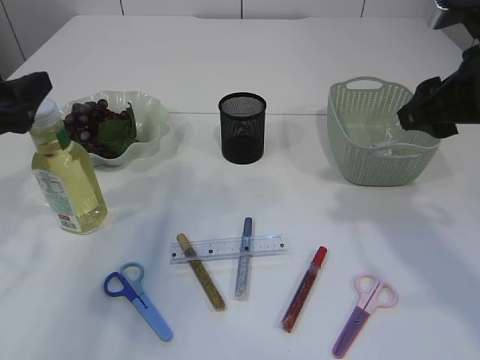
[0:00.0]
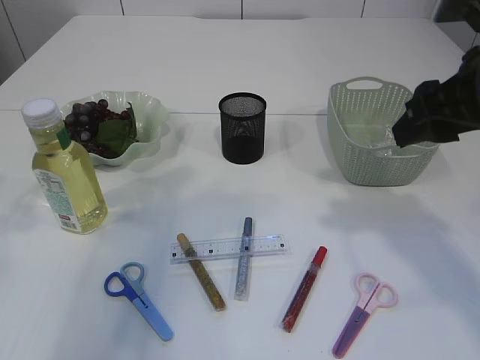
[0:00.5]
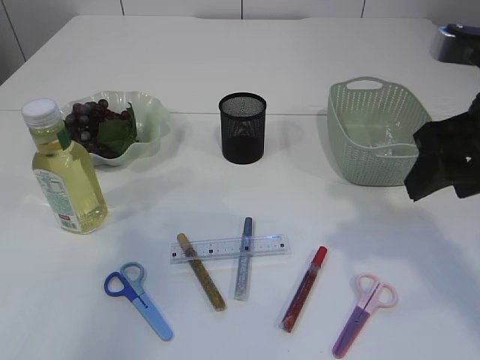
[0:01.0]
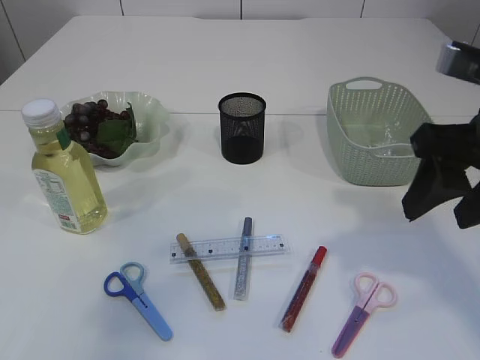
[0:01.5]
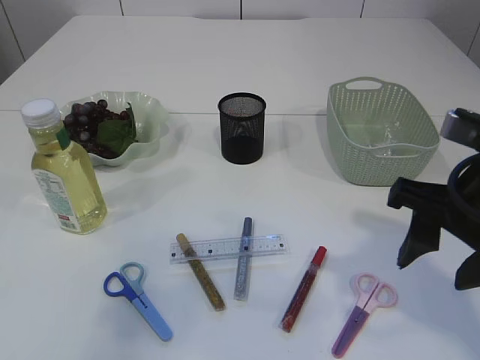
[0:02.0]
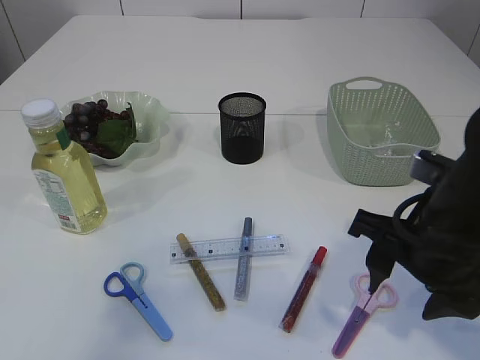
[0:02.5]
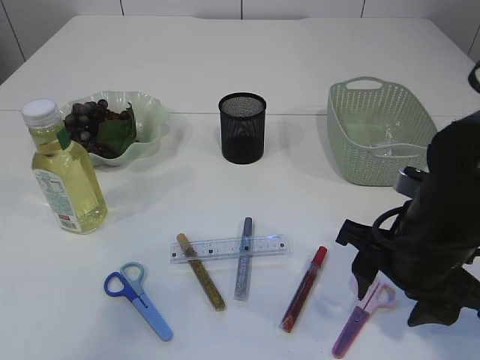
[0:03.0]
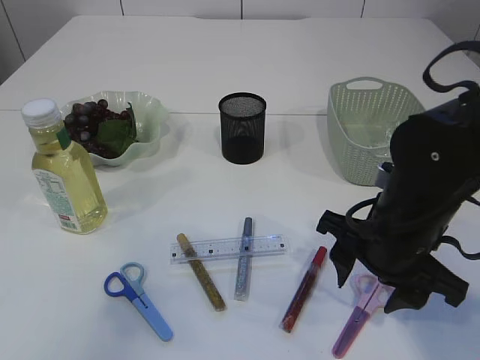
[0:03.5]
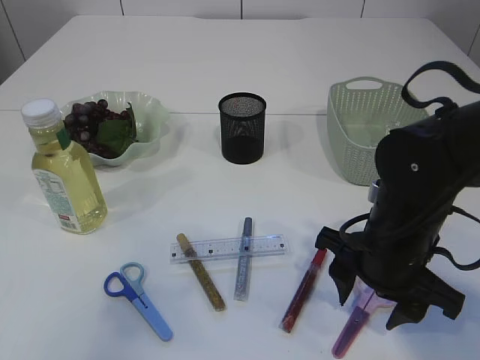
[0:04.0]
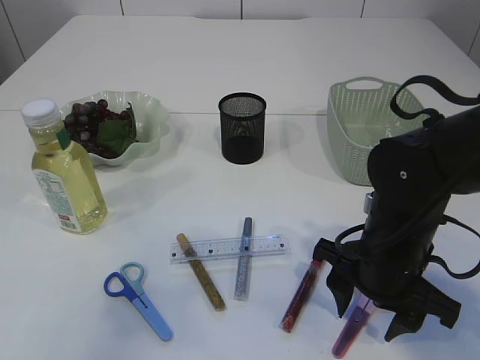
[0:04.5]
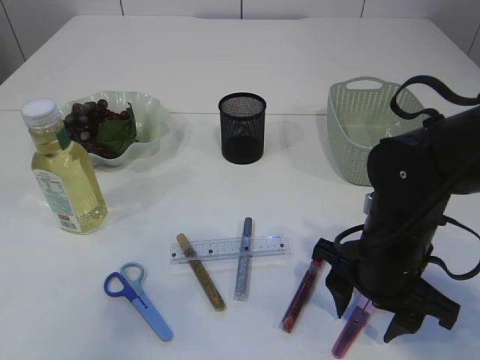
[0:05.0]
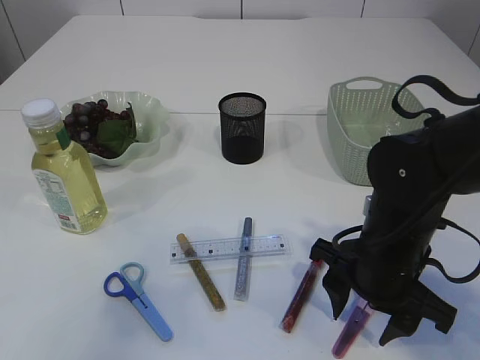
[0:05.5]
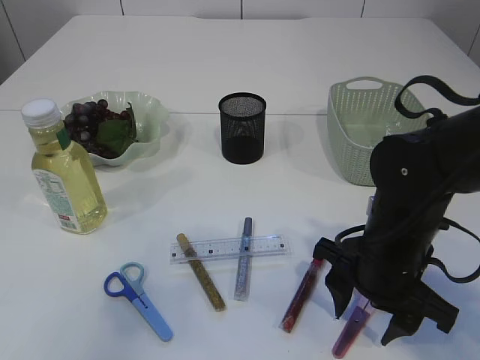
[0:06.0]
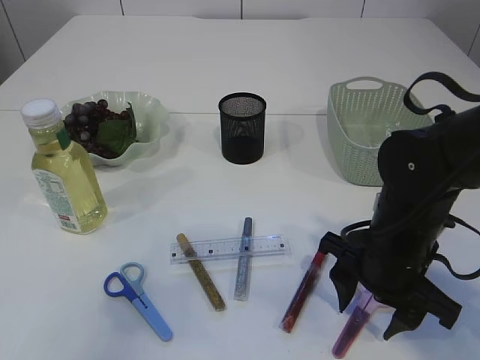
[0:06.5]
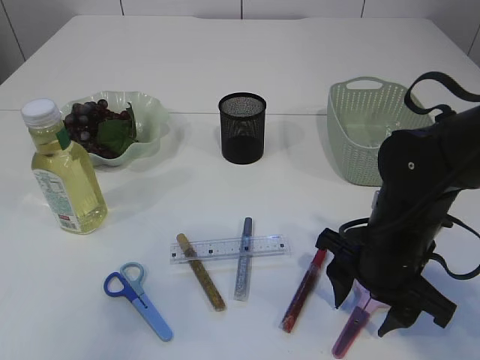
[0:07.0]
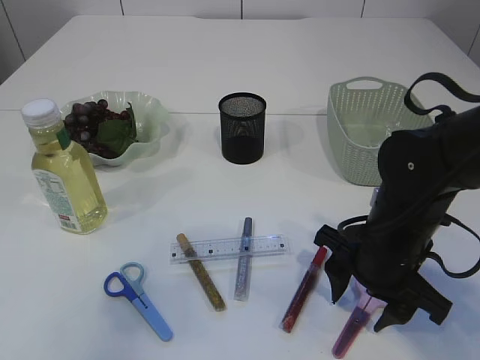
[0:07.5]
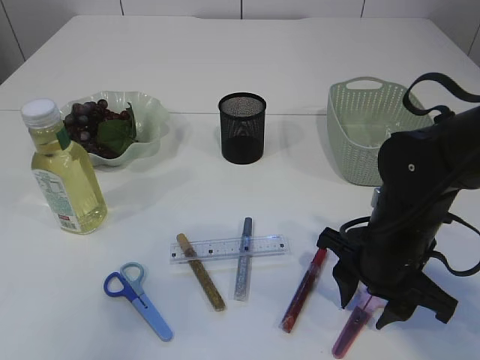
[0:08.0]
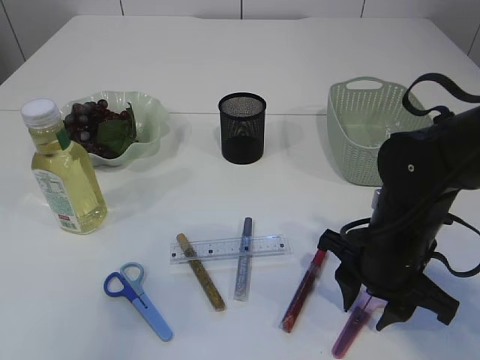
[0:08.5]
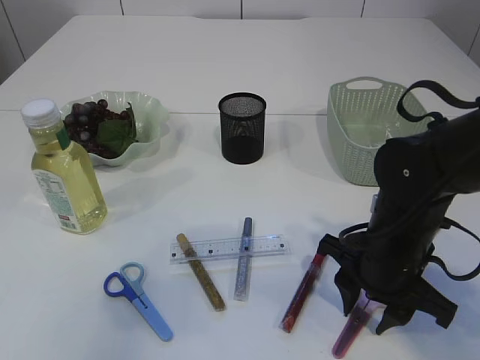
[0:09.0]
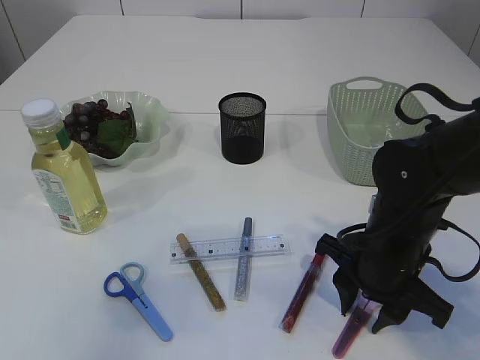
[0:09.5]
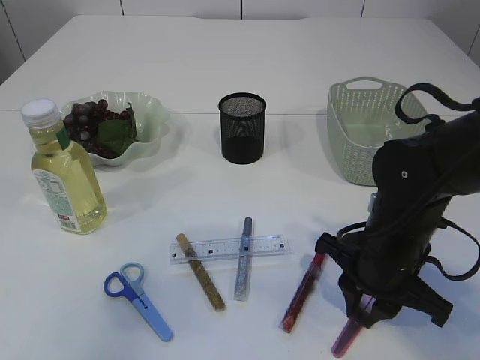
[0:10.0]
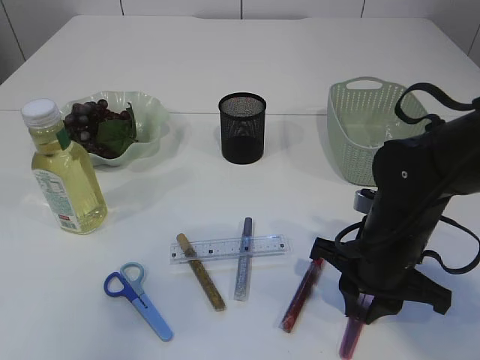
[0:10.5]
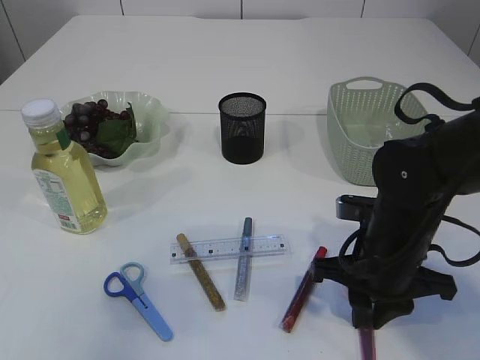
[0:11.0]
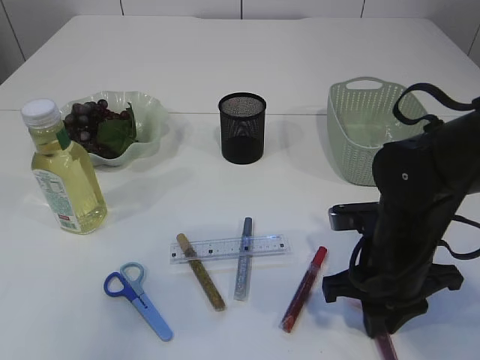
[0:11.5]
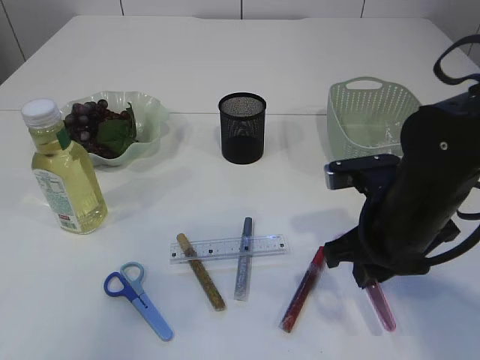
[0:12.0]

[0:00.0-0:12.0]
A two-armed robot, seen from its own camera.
0:00.0 to 0:02.0: The right gripper heads backward, covering some 5 cm, while the left gripper shifts some 20 cm backward and upward, and closes up.
0:02.0 to 0:04.0: The right gripper travels downward and to the left by approximately 10 cm.
0:04.0 to 0:08.0: The grippers move only a little.
0:08.0 to 0:10.0: The right gripper closes.

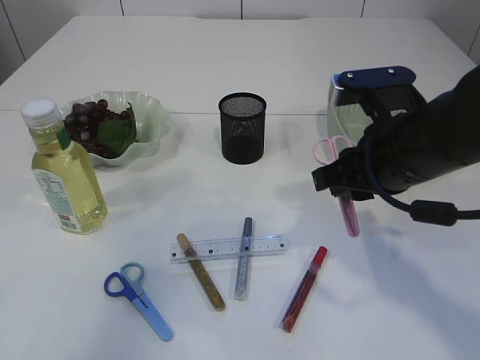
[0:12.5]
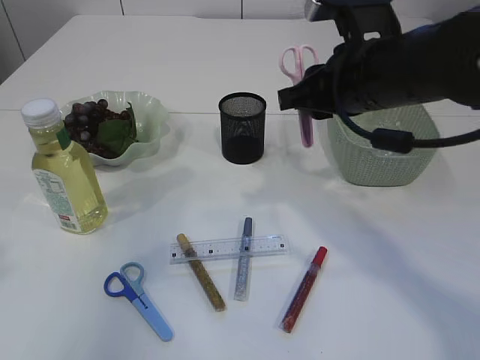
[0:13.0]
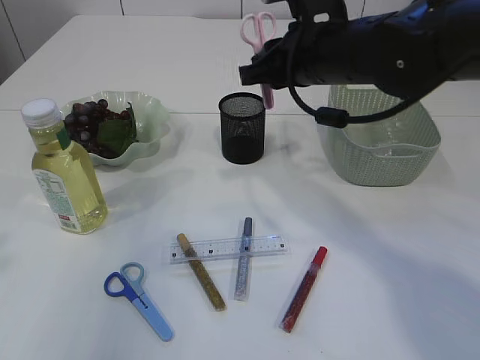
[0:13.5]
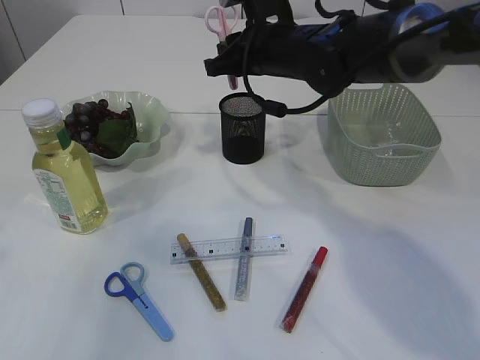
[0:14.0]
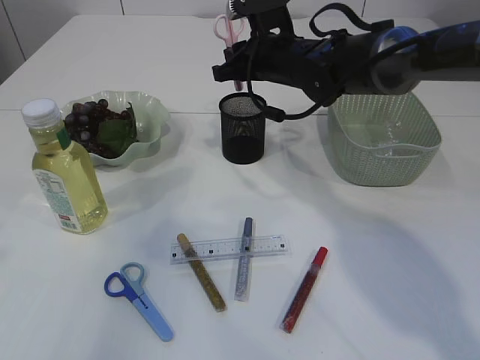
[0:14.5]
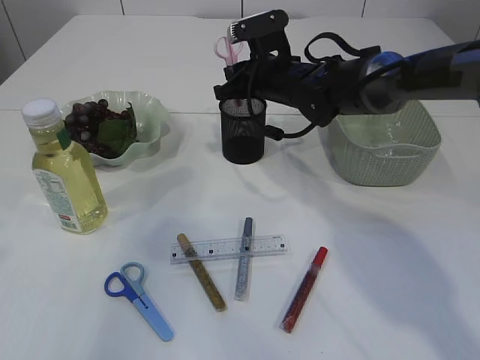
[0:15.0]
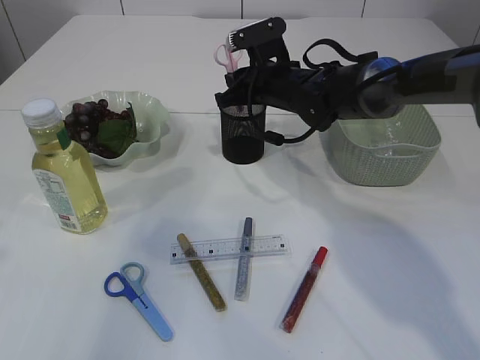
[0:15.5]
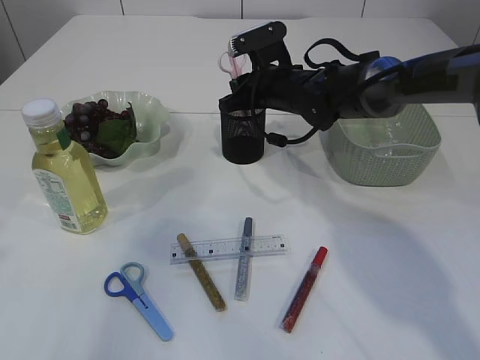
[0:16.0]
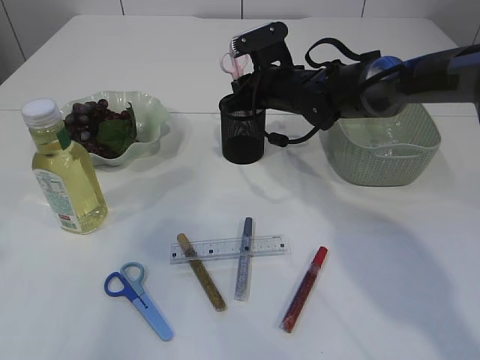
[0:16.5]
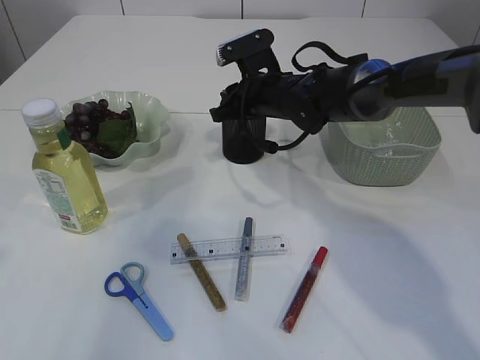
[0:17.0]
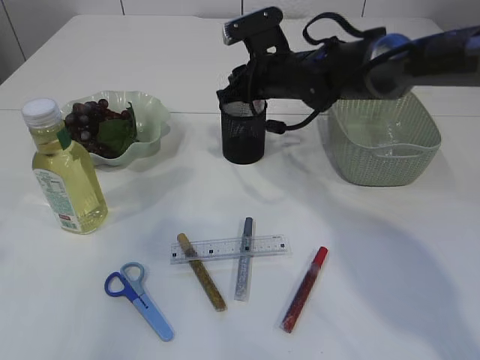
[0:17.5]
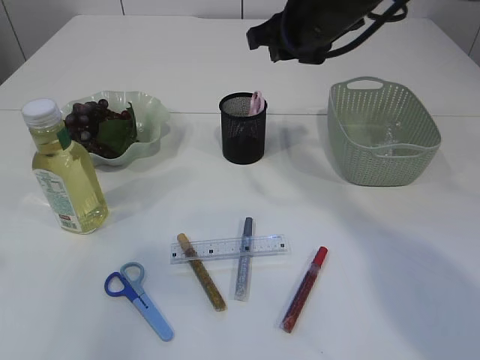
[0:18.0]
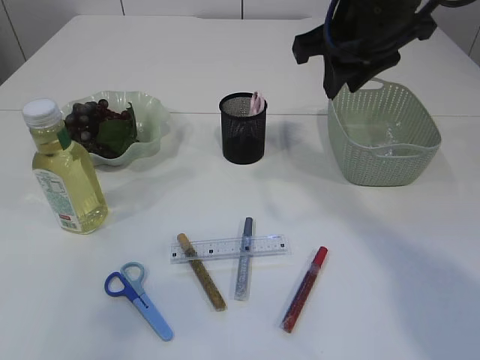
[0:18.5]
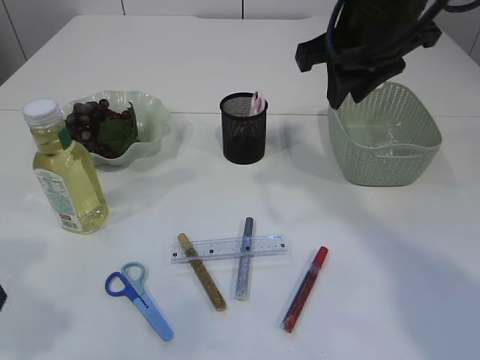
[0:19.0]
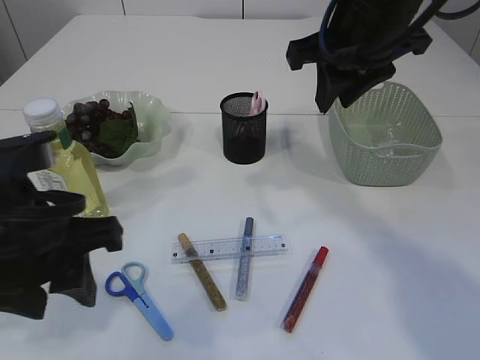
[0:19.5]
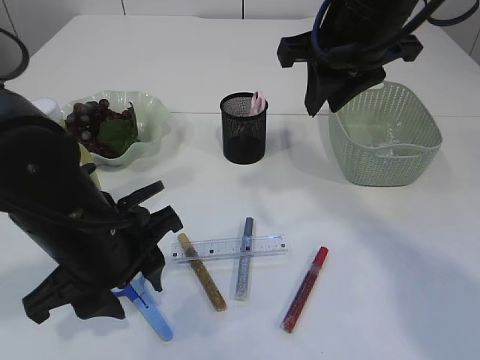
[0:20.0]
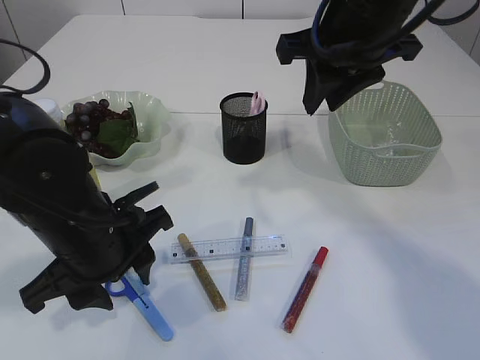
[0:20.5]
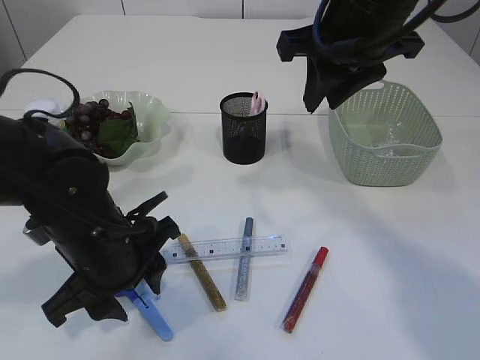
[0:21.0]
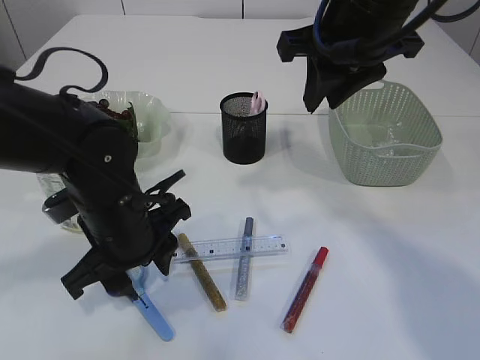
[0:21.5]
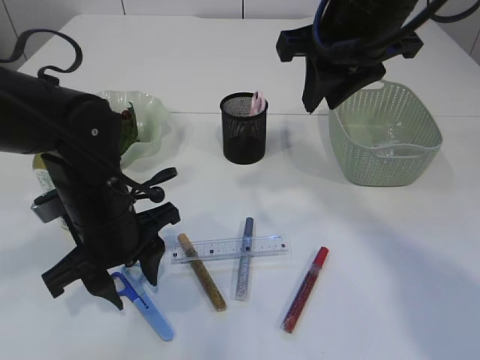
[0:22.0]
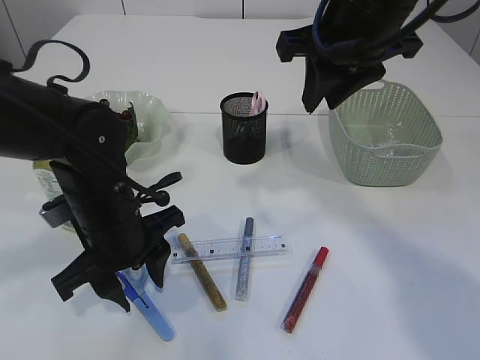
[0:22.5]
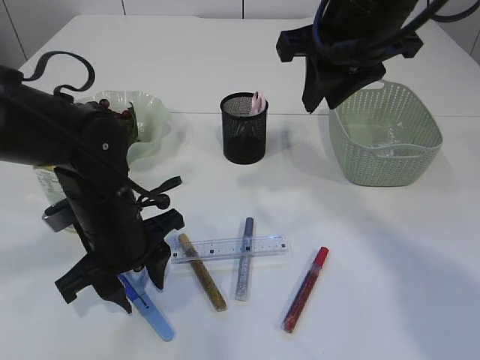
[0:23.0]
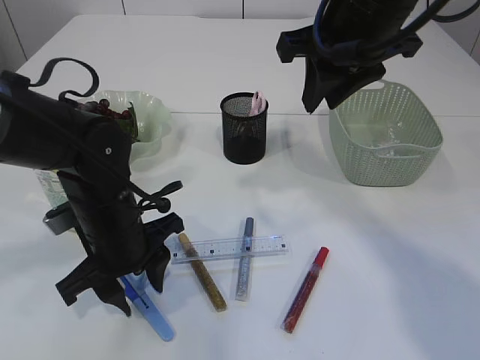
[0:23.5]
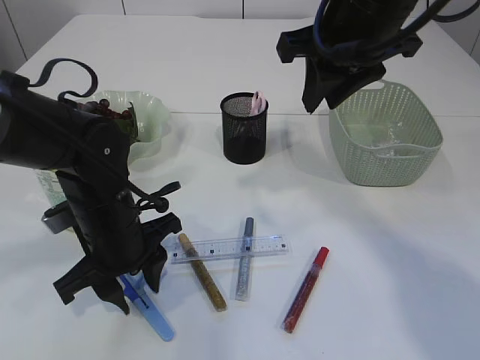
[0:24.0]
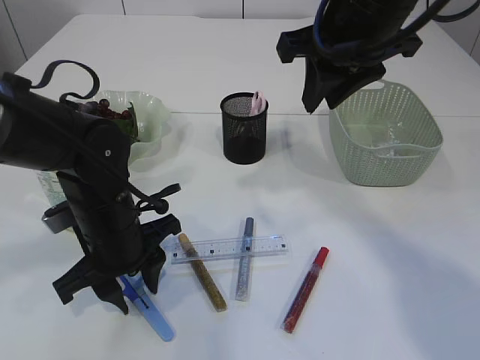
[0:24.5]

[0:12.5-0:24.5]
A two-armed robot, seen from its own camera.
Step, 0:13.0 to 0:17.5: Place the pink scissors into the pen holder.
0:12.5 to 0:14.5: The right gripper shifts roughly 20 cm forward and to the left.
0:14.5 to 0:16.5: The grippers stay close to where they were, moving slightly.
0:16.5 to 0:18.5: The right gripper is displaced upward and backward by approximately 20 cm.
0:18.5 to 0:20.5: The left gripper goes about 25 cm downward, to the right and forward.
0:20.5 to 0:22.5: The left gripper changes place by some 5 cm.
0:22.5 to 0:24.5: There are only small adjustments of the grippers.

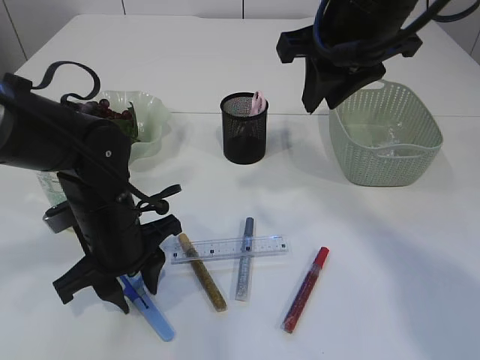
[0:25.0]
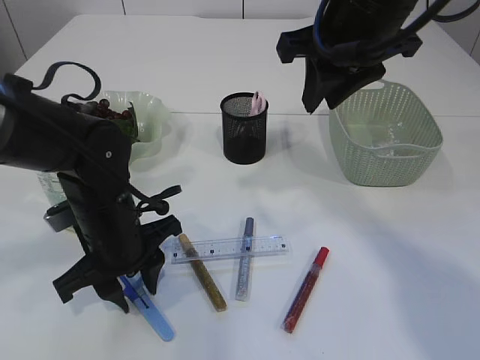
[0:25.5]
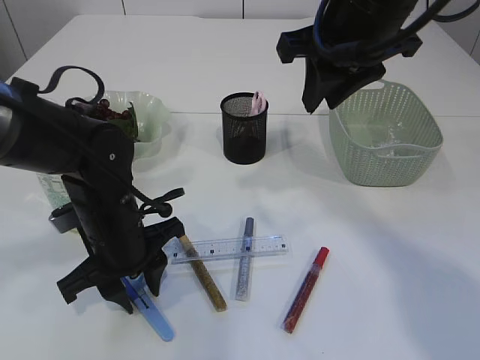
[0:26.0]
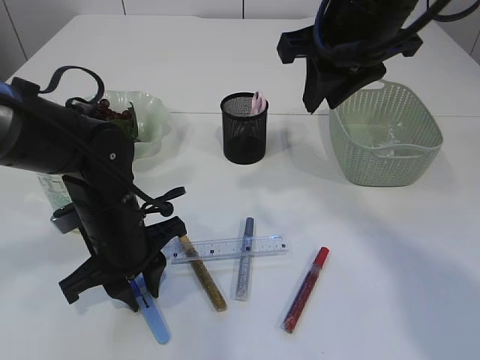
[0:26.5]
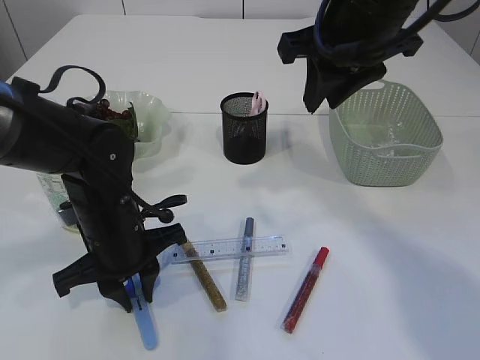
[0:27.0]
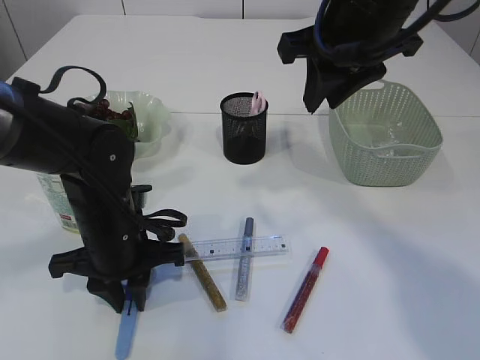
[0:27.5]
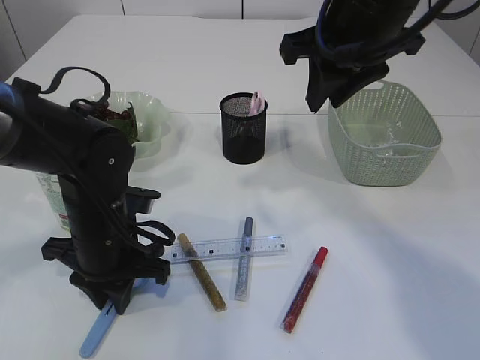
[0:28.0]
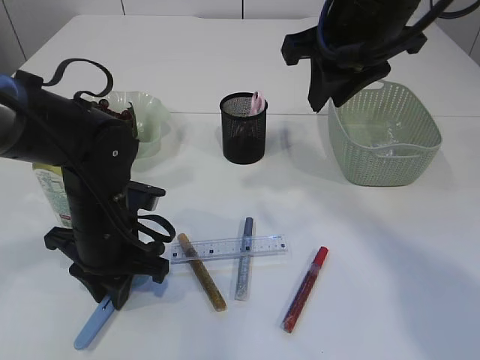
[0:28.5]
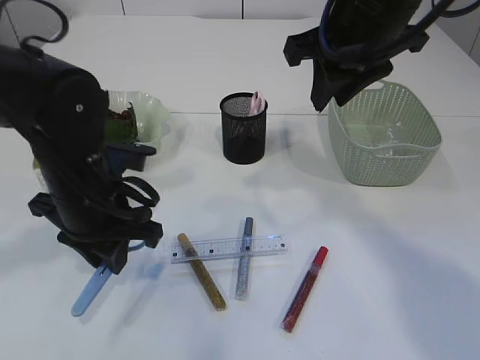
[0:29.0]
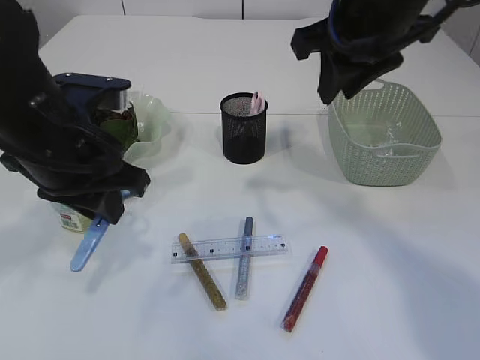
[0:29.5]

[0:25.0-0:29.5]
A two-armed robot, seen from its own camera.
Step, 0:25.0 to 0:29.0: pick up the blue scissors.
0:25.0 to 0:27.0: There are only small adjustments of the grippers.
0:27.0 to 0:29.5: The left gripper travels upward by some 15 cm.
